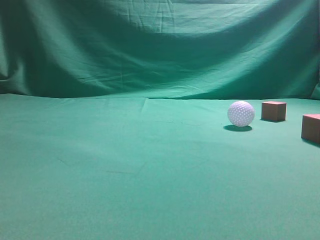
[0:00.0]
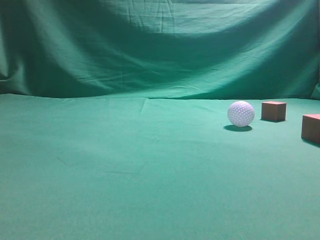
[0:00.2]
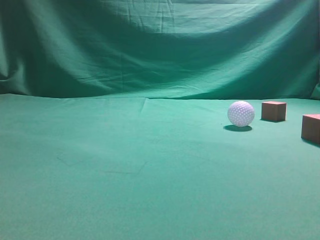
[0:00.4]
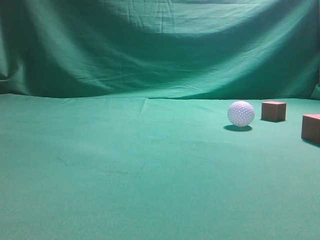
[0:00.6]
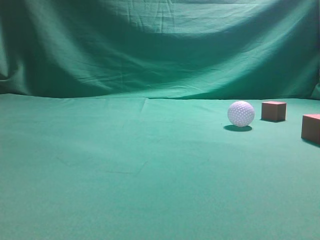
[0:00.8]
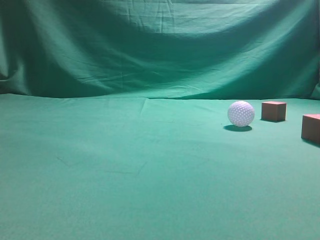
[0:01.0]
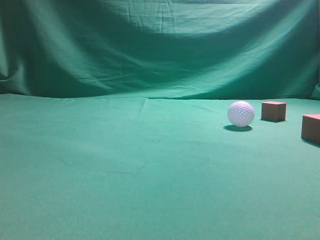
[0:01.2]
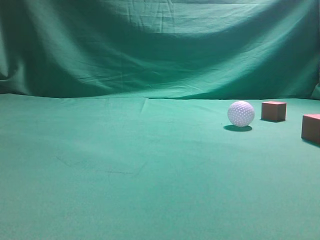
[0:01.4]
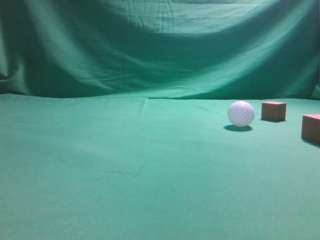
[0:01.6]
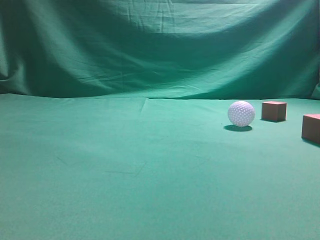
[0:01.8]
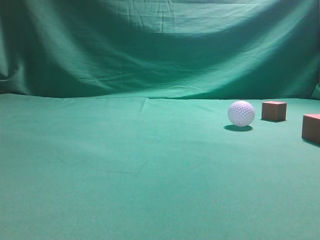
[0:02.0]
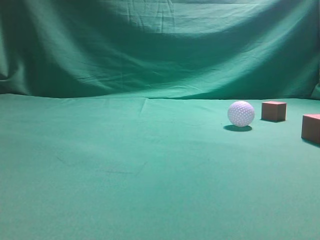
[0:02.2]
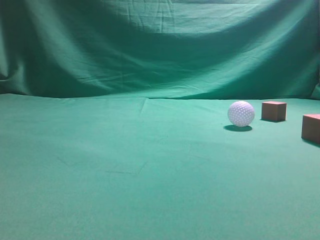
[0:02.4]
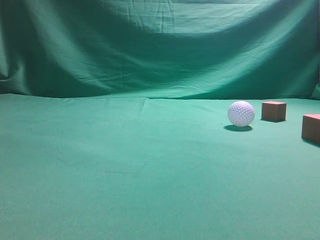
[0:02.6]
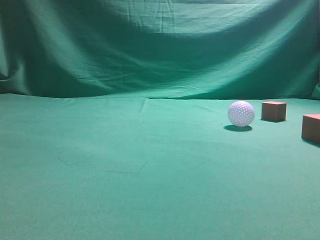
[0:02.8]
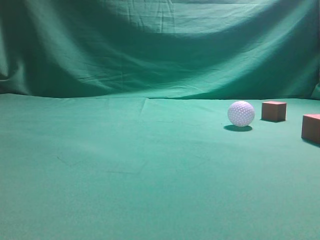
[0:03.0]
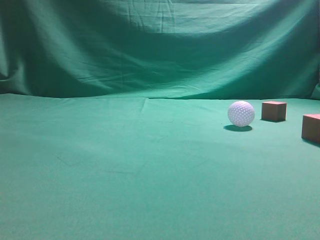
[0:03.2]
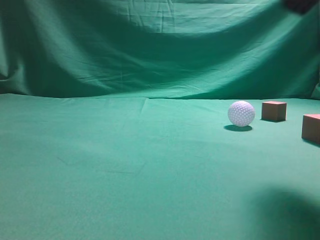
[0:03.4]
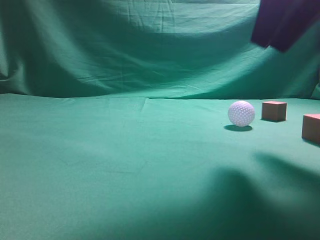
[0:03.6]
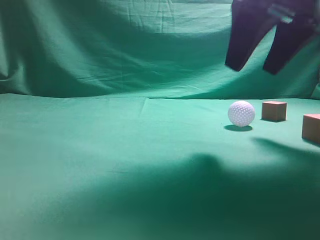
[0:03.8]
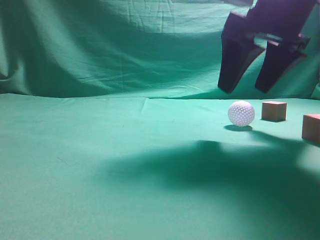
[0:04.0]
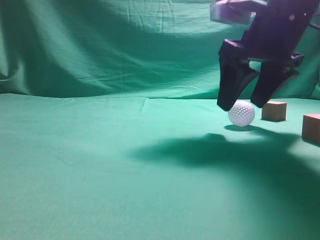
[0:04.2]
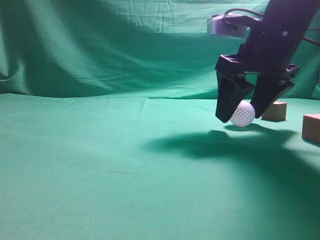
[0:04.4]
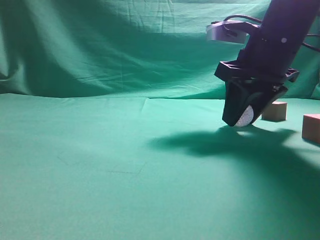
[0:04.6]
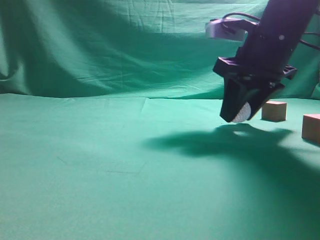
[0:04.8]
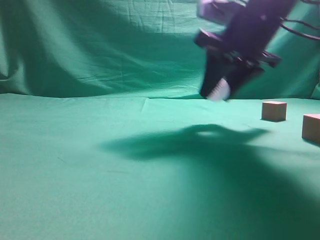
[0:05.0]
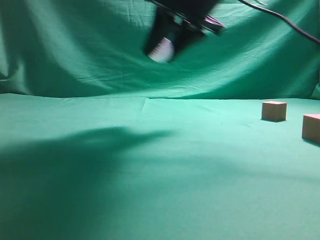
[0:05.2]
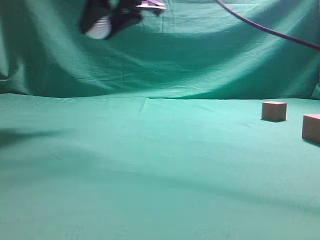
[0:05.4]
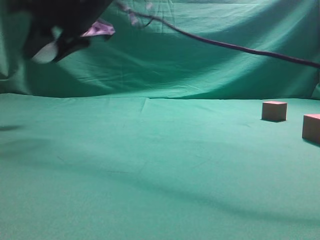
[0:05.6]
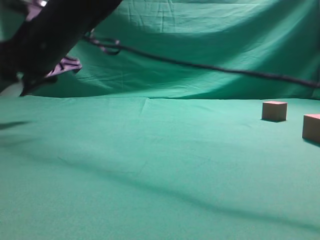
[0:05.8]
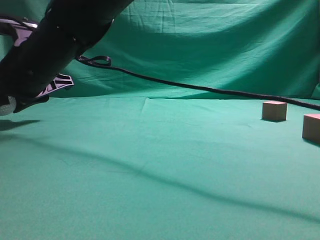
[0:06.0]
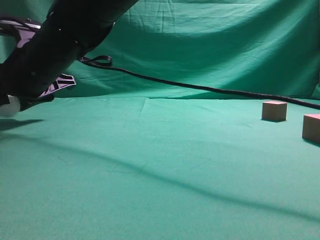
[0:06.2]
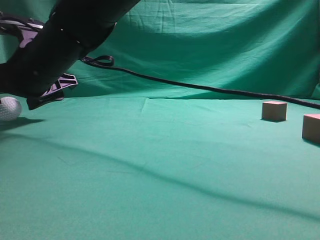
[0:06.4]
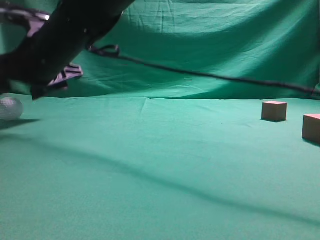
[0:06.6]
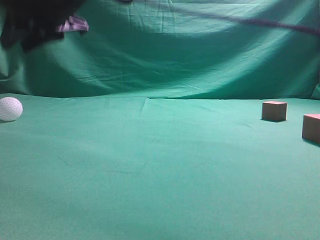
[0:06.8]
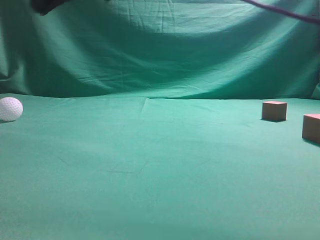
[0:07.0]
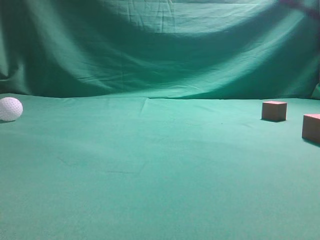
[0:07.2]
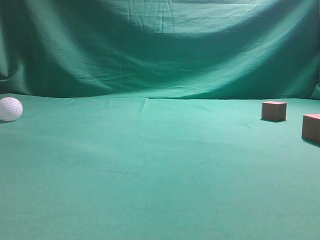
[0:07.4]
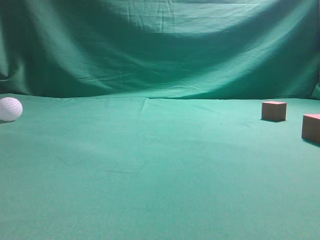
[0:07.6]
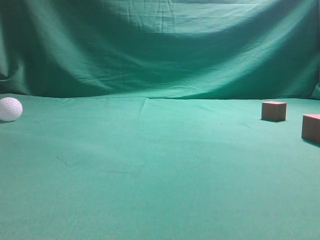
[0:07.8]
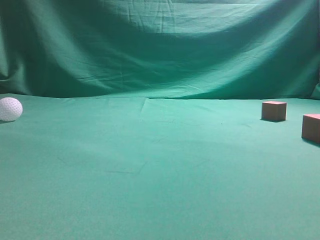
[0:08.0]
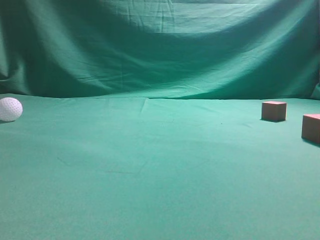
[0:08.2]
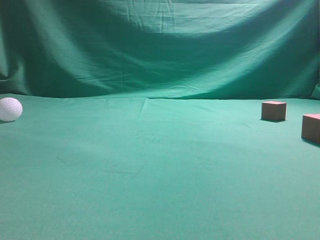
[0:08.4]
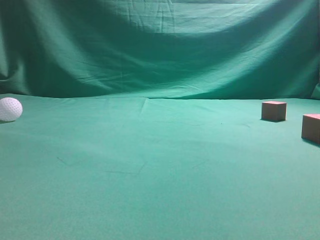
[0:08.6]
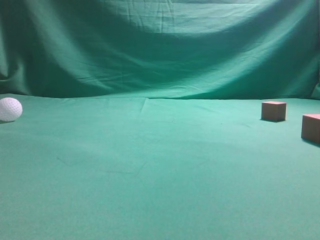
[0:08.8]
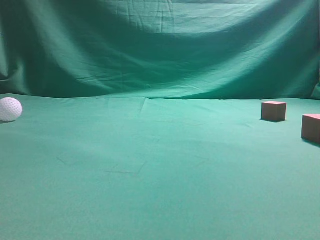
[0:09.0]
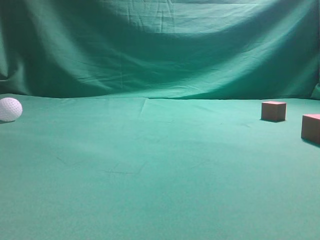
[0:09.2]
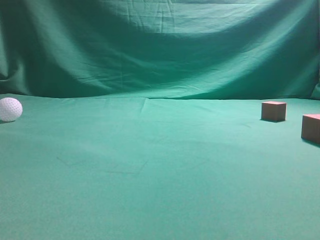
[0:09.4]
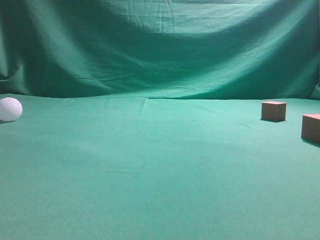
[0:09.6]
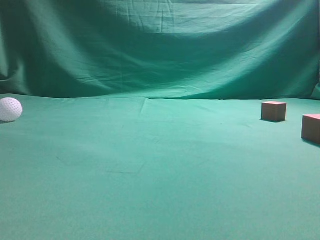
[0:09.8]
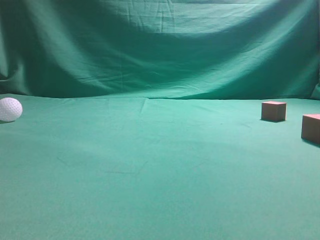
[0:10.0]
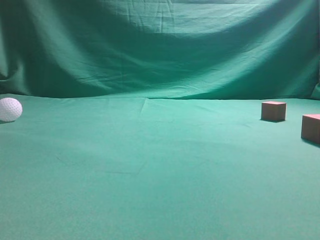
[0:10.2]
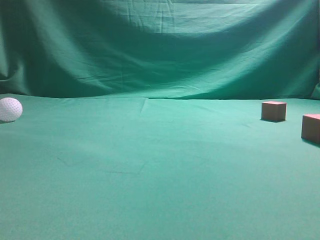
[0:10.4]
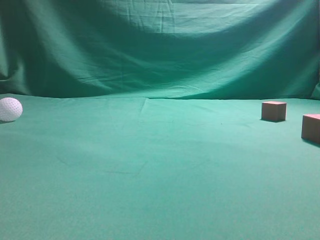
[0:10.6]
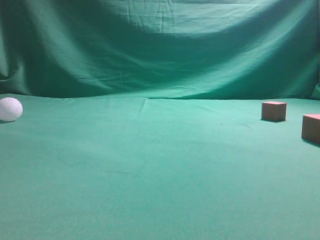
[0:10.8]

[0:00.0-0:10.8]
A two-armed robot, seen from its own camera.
Step, 0:00.0 to 0:04.8: Grasp the spherical object on the right side.
0:03.0 to 0:04.6: The right gripper heads forward, downward and to the left, covering approximately 25 cm, and opens.
0:04.6 to 0:06.2: The right gripper travels to the left by roughly 30 cm.
0:06.2 to 0:07.8: The right gripper shifts some 40 cm upward and to the right, and closes its fingers.
